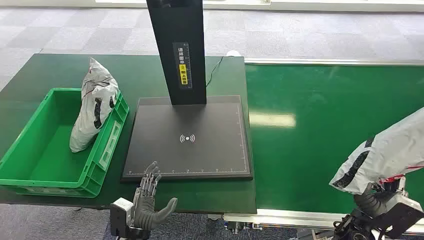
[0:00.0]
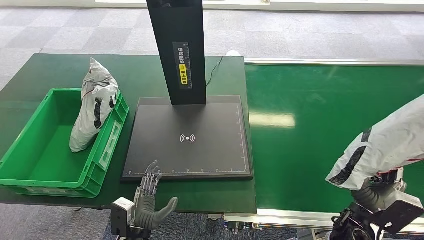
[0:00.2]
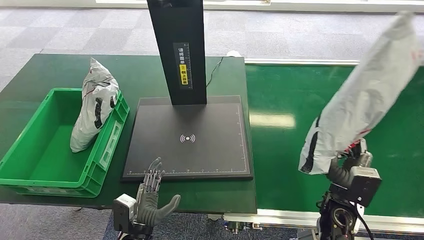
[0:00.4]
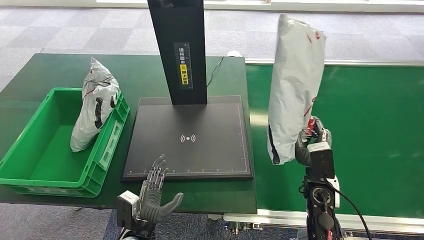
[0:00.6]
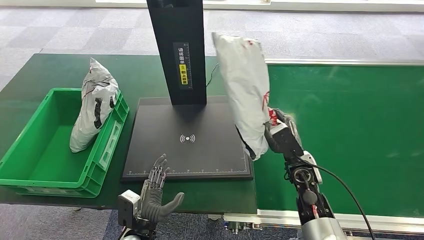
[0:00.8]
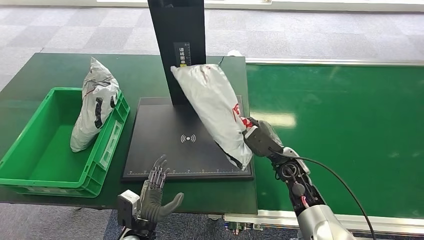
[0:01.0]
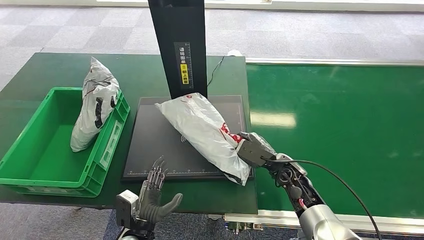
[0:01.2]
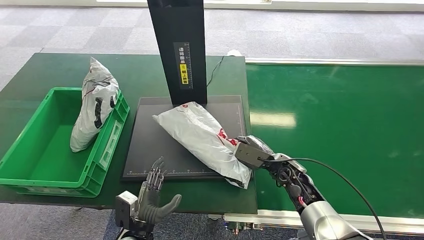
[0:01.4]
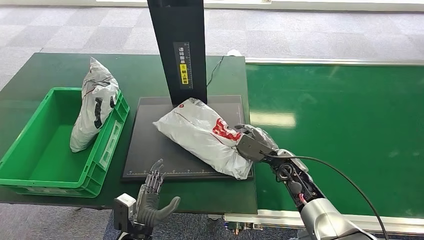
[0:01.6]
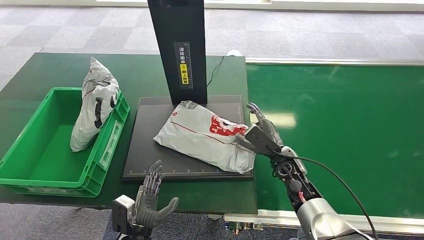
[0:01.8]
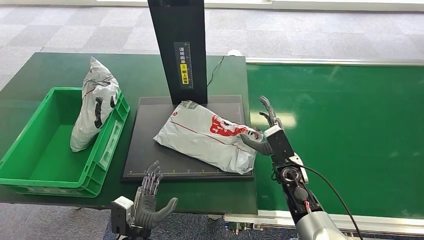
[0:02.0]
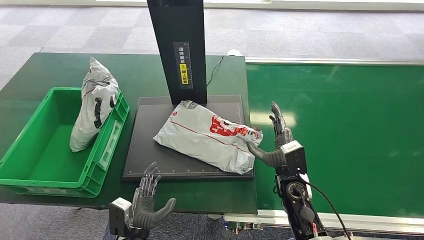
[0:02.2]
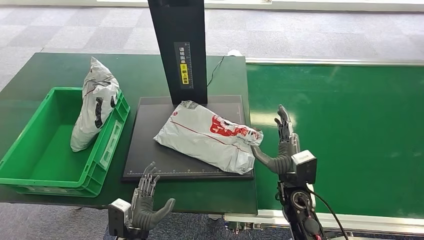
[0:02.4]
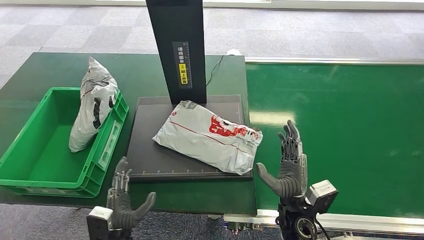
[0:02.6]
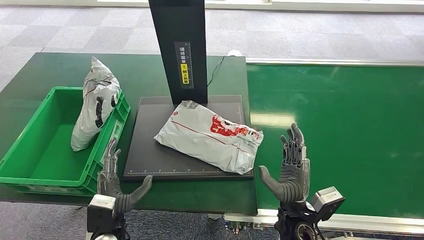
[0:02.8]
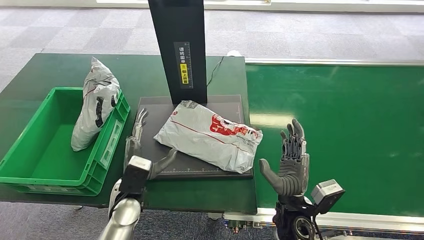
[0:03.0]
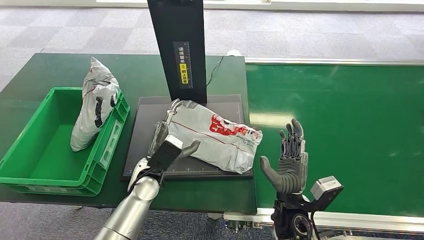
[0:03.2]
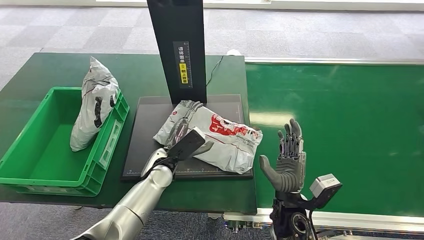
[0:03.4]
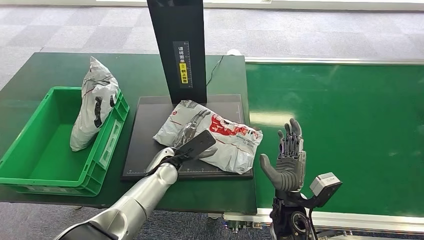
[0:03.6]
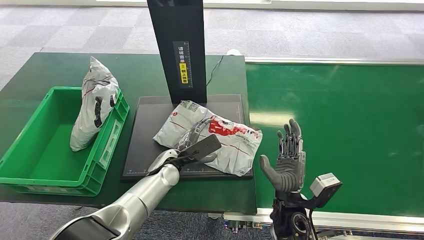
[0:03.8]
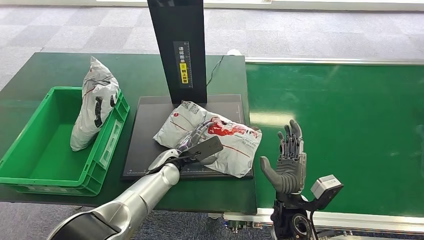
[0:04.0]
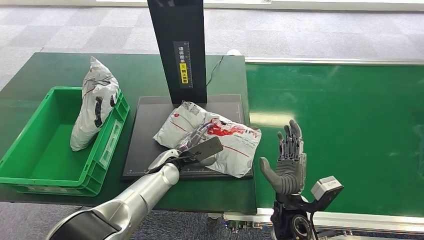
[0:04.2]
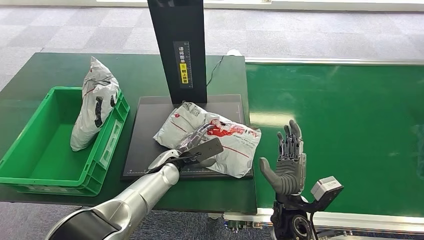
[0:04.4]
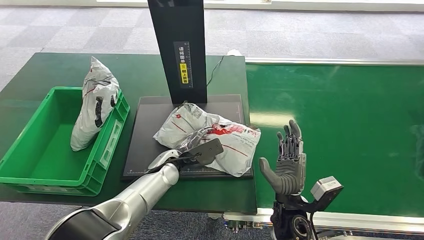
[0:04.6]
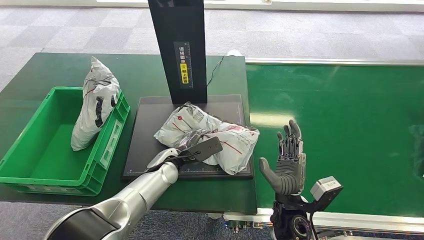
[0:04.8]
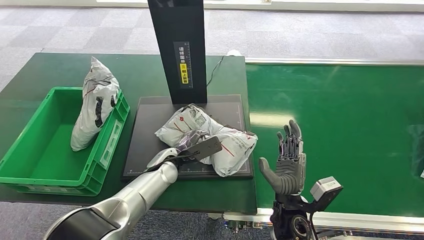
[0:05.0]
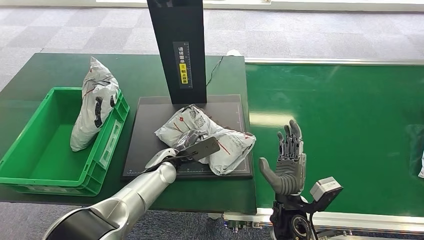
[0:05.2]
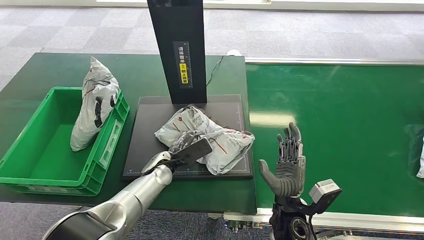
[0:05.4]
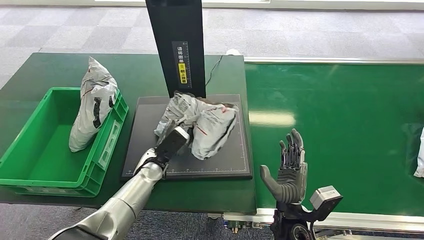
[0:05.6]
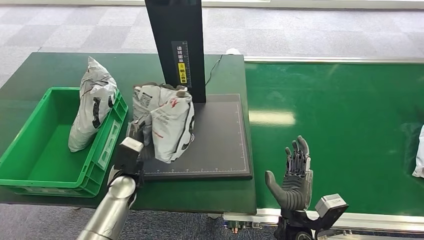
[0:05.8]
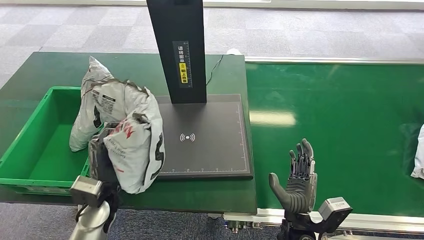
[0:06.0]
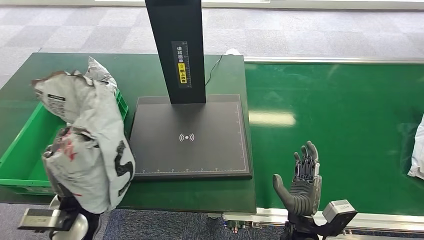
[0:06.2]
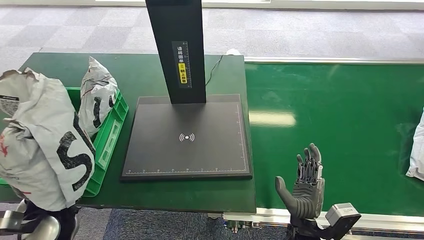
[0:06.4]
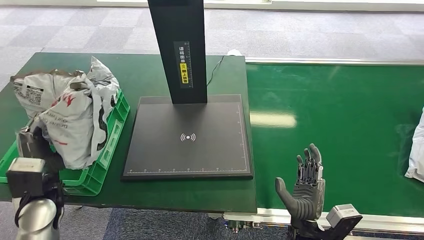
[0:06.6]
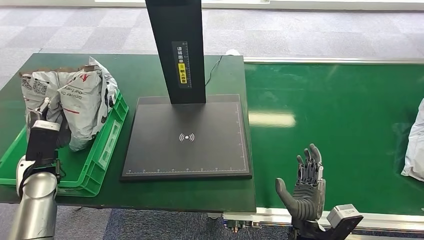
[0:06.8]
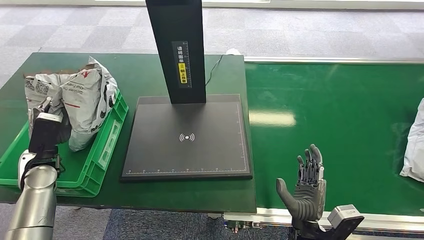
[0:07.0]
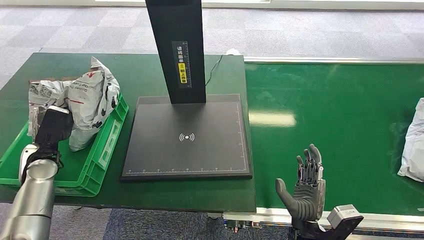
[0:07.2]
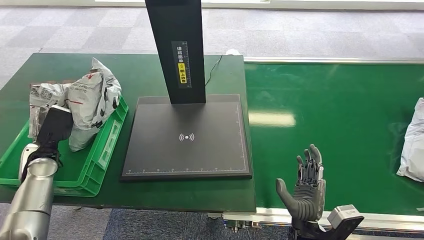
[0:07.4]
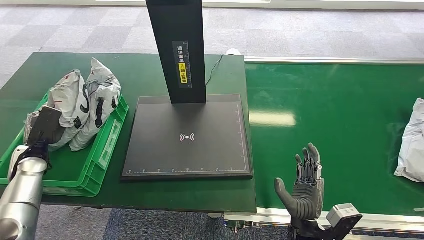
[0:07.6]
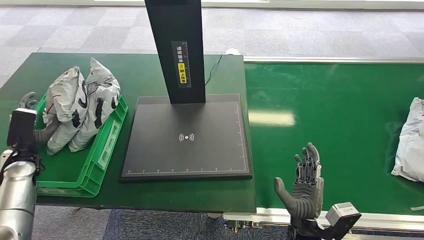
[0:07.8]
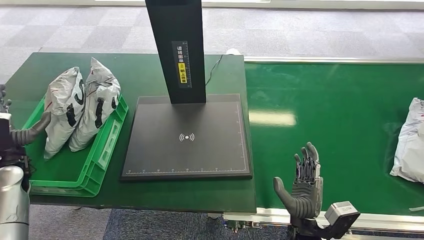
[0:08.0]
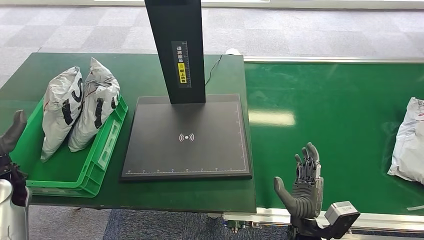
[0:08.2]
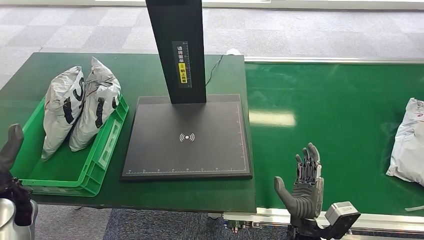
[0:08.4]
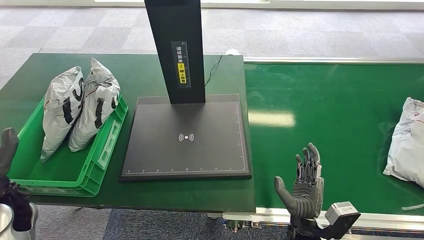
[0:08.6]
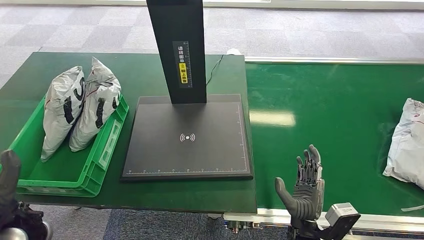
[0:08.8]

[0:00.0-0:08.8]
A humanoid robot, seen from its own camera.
0:01.4 to 0:03.0: The left hand travels upward and forward by approximately 15 cm; the right hand goes about 15 cm backward and to the left.
0:03.0 to 0:04.4: The left hand is displaced forward and to the right by some 10 cm.
0:07.4 to 0:08.8: The left hand is displaced backward and to the right by about 20 cm.
